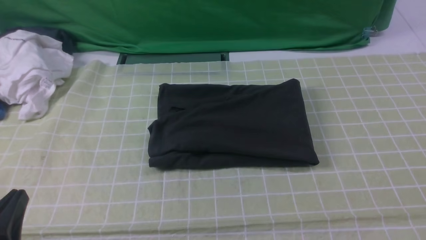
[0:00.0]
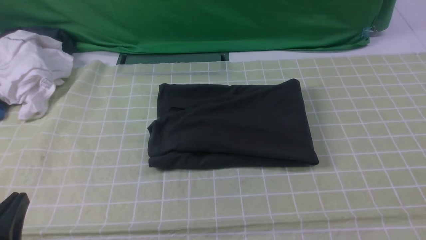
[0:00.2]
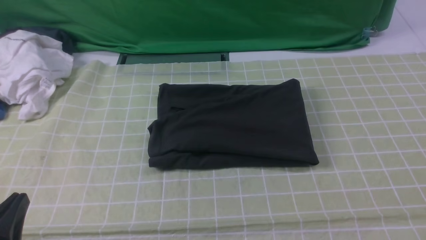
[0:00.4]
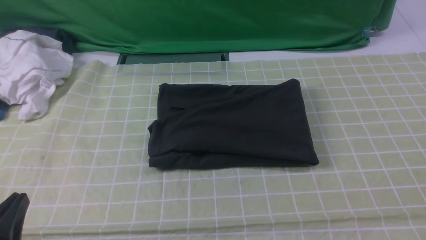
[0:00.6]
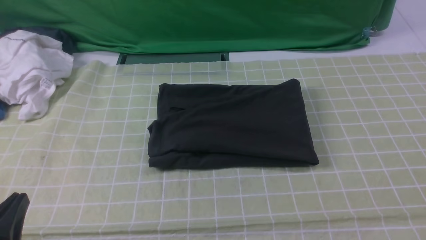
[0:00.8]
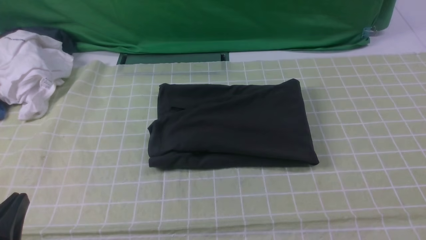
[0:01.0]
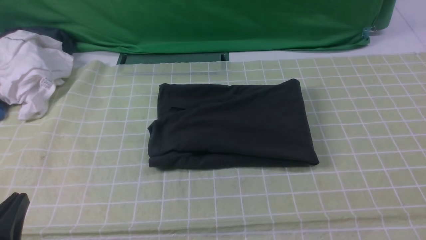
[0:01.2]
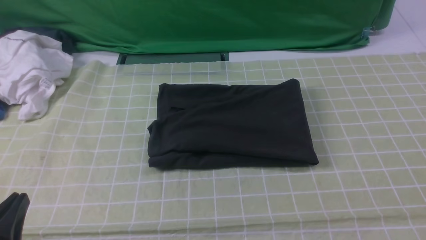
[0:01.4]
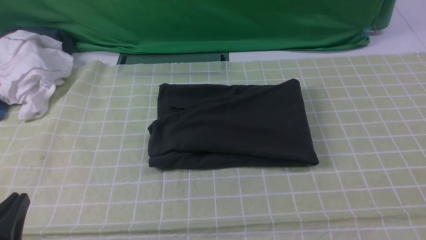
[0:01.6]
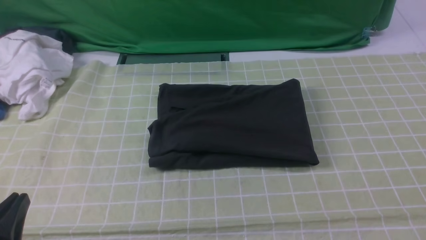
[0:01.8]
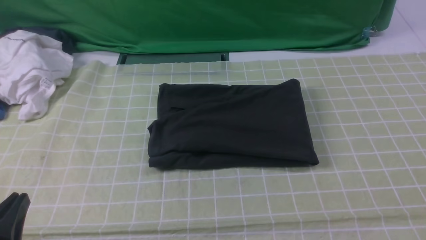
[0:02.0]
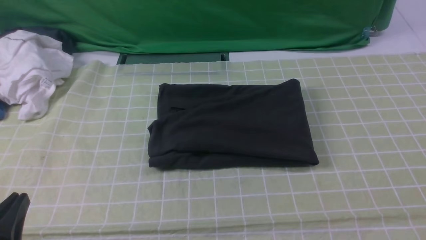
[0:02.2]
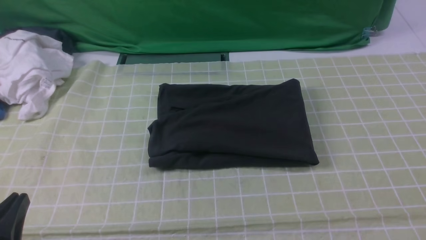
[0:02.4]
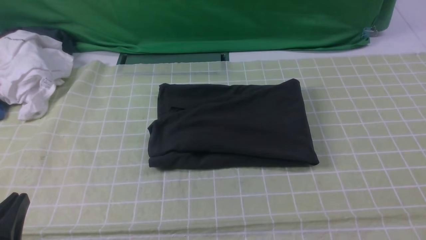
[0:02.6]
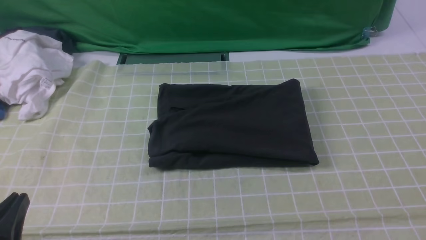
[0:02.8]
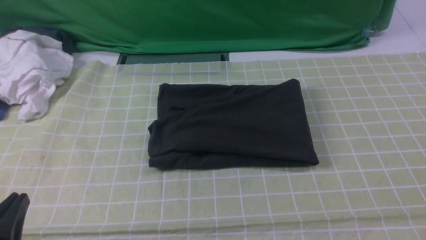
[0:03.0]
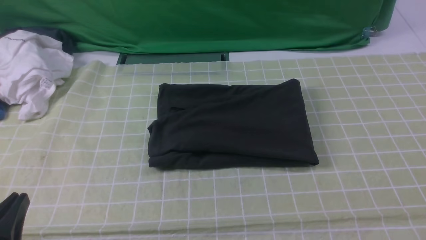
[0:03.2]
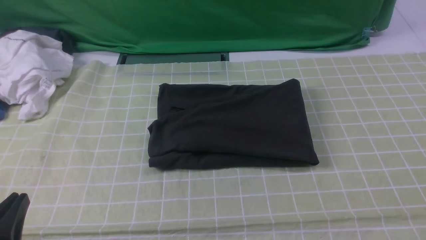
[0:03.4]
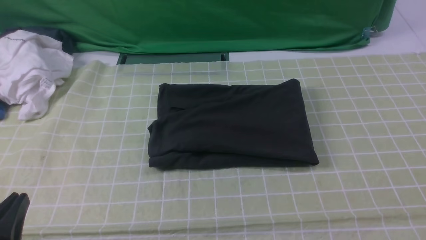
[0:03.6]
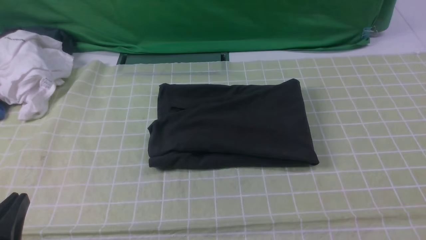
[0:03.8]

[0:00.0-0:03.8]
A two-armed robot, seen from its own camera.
0.0 to 1.2 s: Both grippers stay about where they are.
2.6 to 3.8 s: Both grippers stay about where they are.

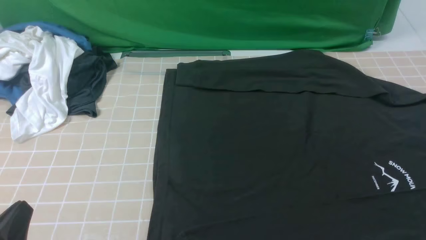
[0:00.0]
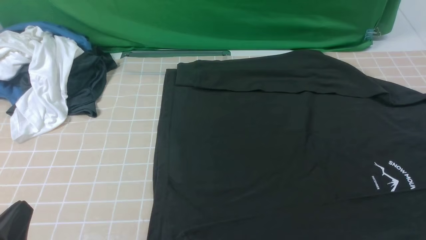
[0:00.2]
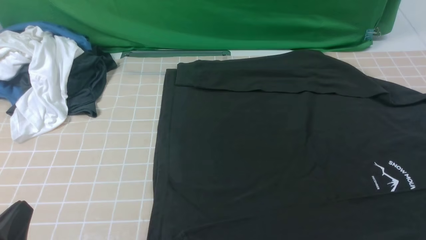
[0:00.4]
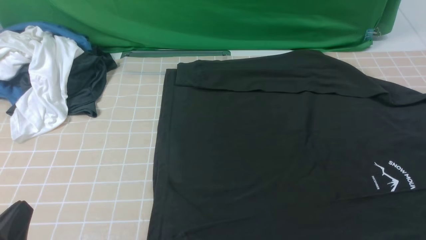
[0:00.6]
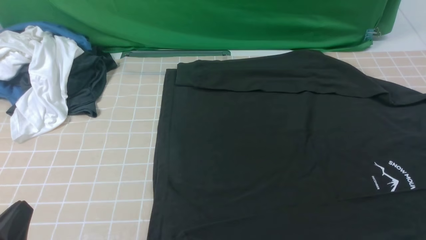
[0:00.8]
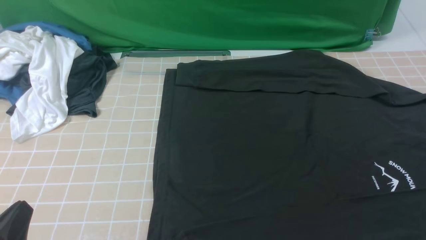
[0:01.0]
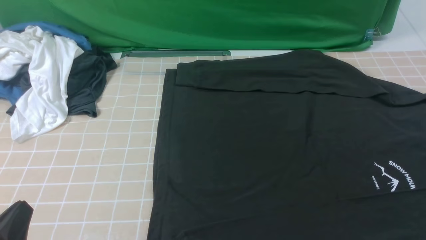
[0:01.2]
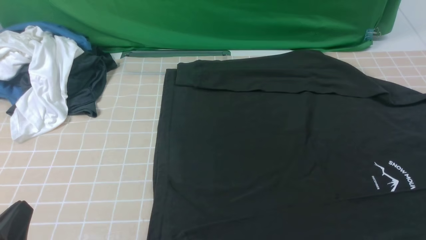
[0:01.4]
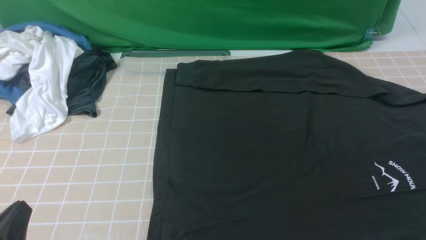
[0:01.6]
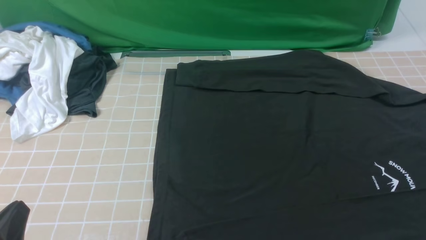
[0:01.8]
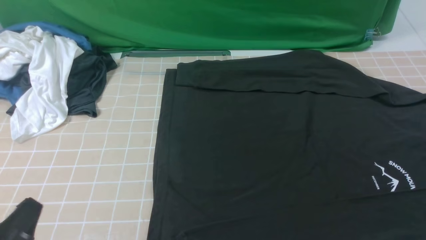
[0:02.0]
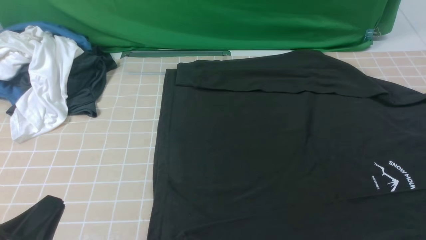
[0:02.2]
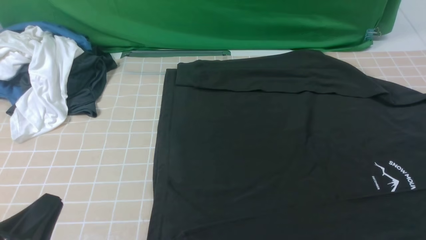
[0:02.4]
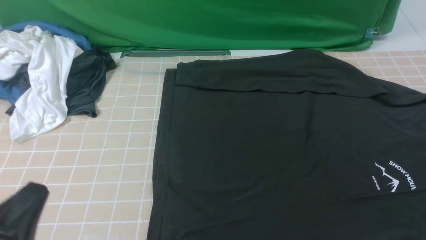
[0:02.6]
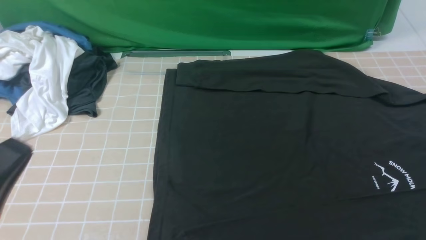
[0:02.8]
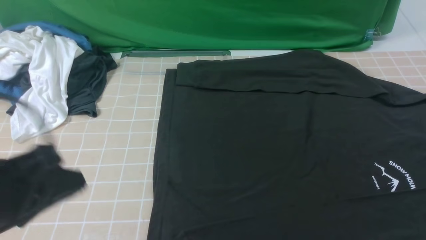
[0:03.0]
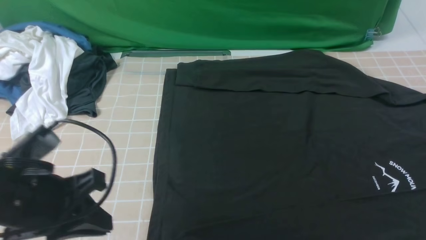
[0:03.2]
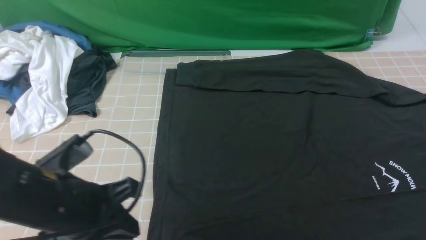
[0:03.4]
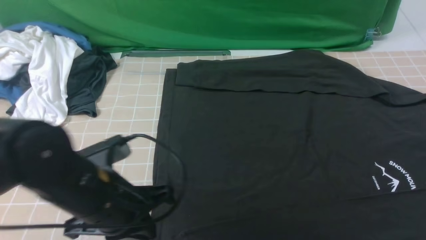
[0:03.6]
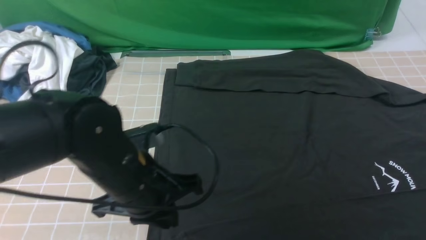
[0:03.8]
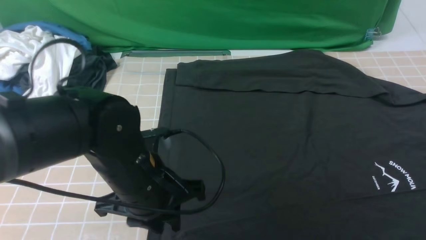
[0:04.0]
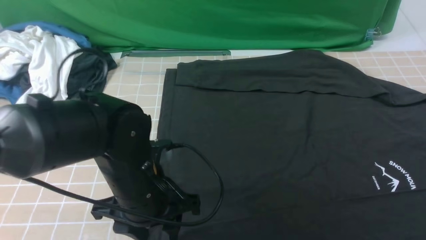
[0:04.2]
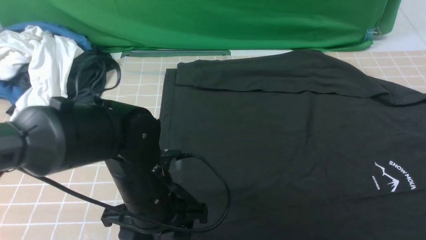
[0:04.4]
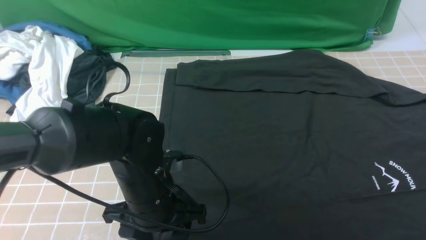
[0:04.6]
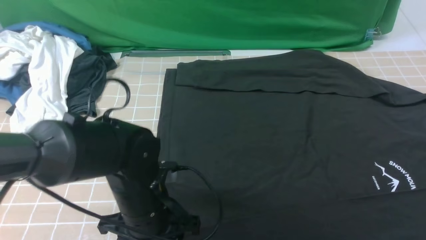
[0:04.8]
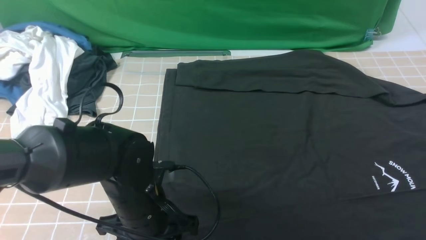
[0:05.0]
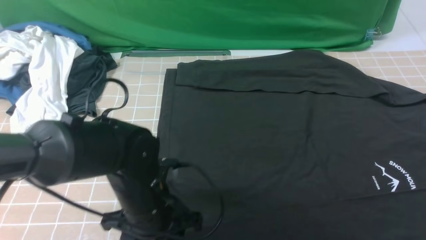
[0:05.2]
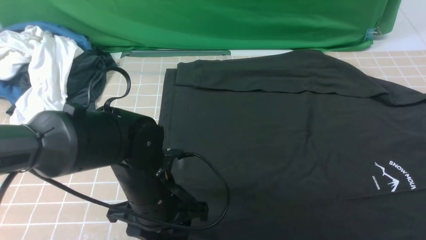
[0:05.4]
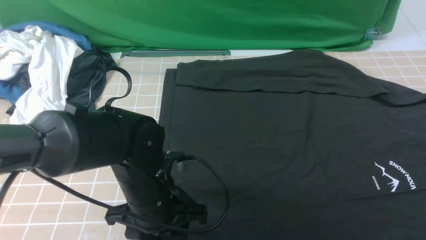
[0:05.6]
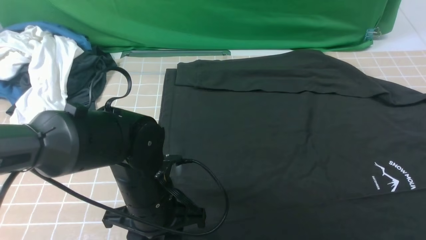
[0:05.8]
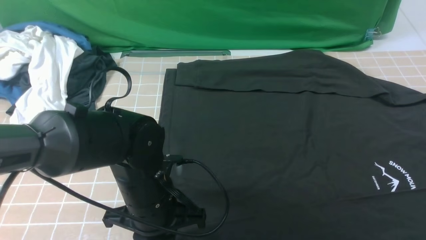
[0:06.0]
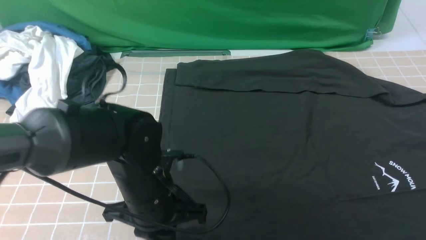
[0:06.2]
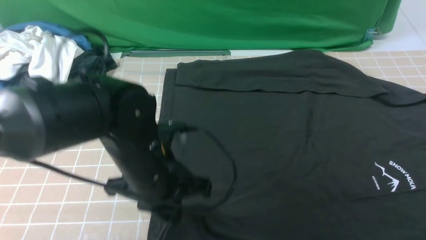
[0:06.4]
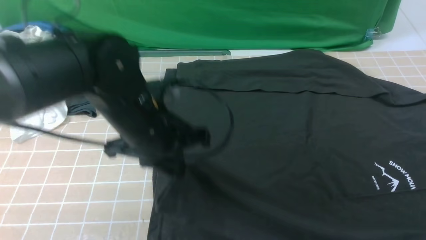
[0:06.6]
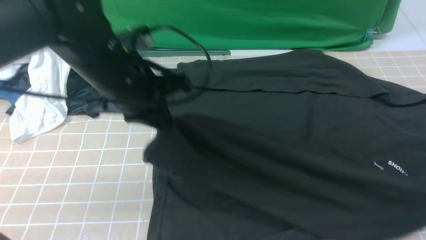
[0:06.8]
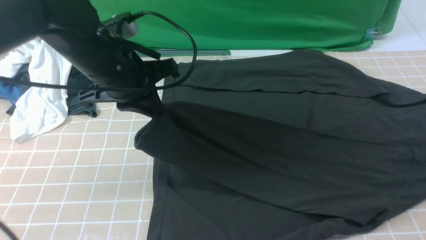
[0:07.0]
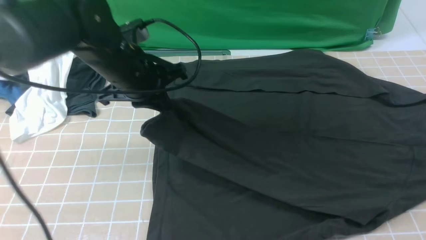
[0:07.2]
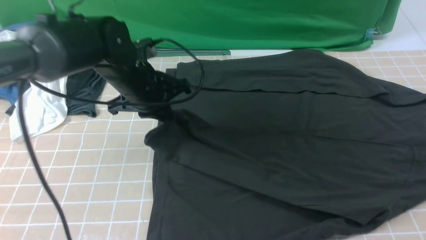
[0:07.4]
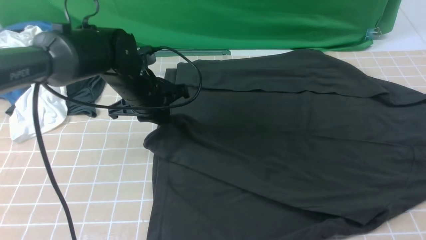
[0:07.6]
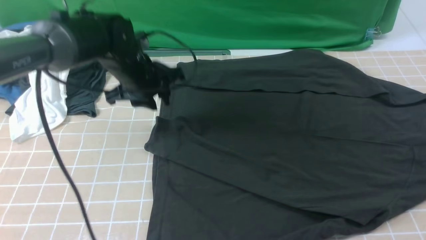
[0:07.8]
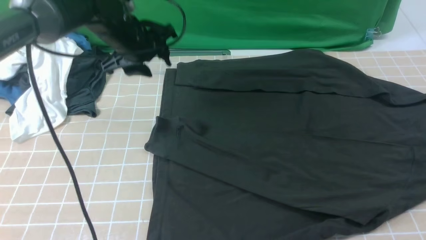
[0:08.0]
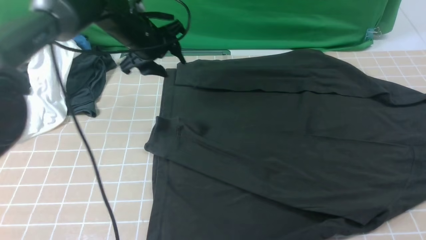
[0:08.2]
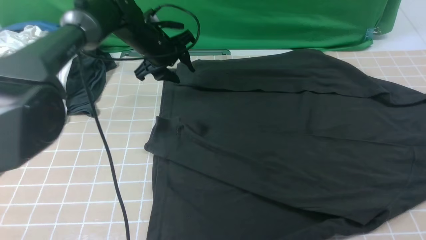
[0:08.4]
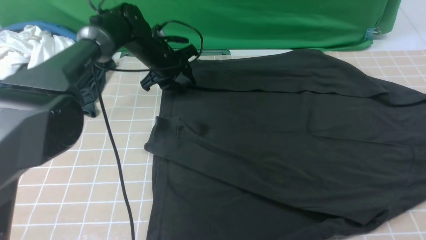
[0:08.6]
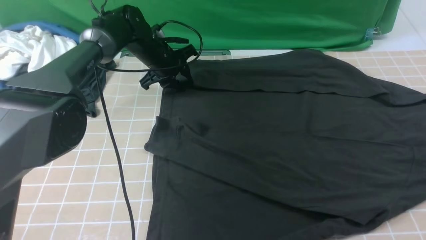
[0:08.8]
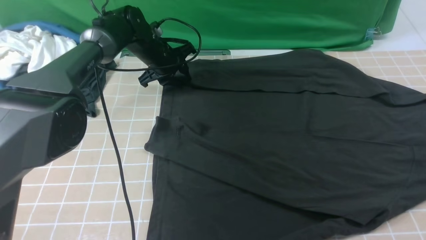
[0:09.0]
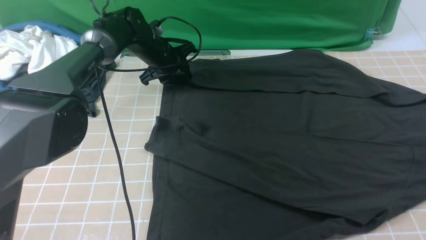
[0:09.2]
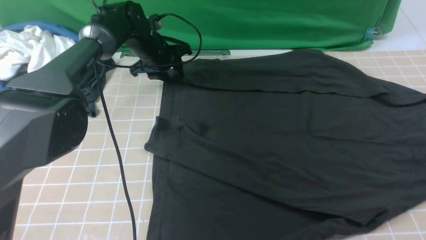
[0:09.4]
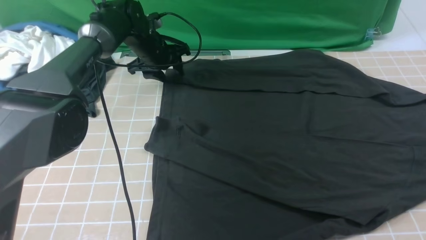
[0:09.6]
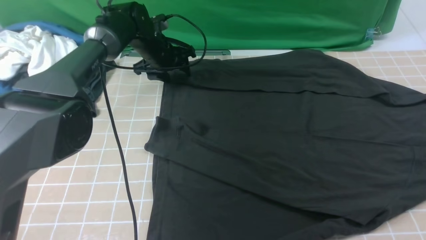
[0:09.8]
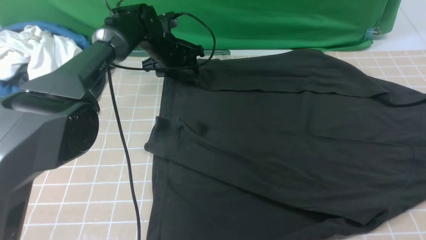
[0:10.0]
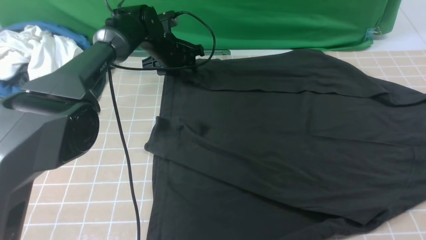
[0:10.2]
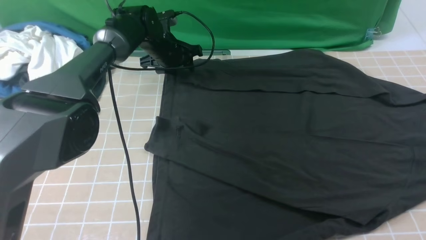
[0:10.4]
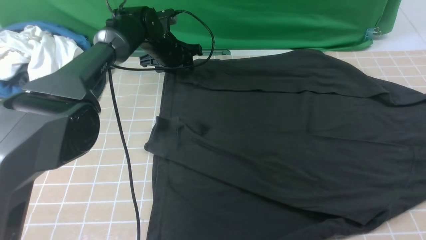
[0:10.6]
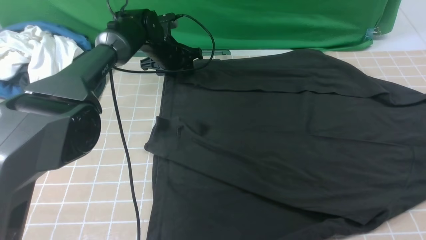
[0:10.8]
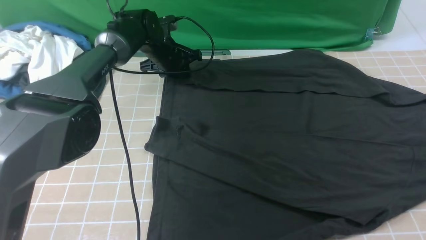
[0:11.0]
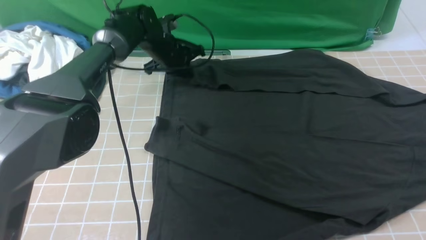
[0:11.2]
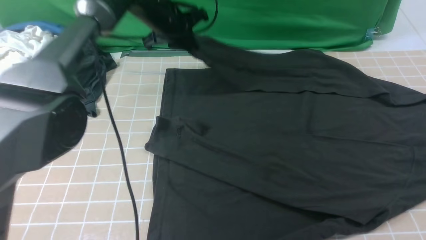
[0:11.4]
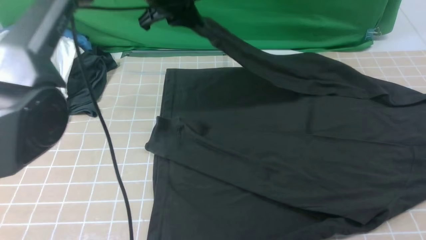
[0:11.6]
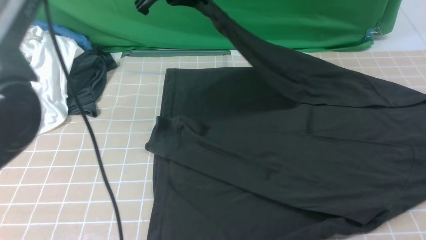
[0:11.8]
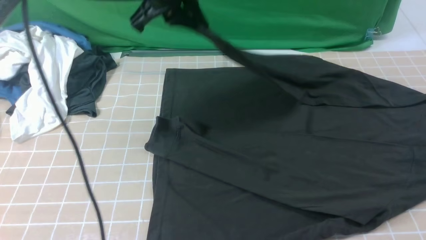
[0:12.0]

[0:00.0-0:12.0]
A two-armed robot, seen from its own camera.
Step, 0.0 to 6.0 s: use the left arm to clamp the cuff closest to it.
Step, 6.2 to 7.8 s: use the left arm to drag and place the cuff at the centered position on the left edge of the fabric.
Step, 8.0 to 11.0 s: use the left arm to clamp the cuff farthest from it.
0.0 to 1.6 s: Both grippers stay put.
1.6 to 3.0 s: The left gripper heads upward and forward, covering about 10 cm.
3.0 to 4.4 s: The left gripper moves to the right, downward and forward, about 20 cm, and opens.
4.4 to 6.0 s: The left gripper closes its fingers.
6.0 to 7.6 s: The left gripper moves forward, some 20 cm.
7.6 to 9.0 s: The left gripper goes roughly 15 cm forward.
10.4 to 12.0 s: The left gripper heads upward and backward, covering roughly 25 cm, and closes.

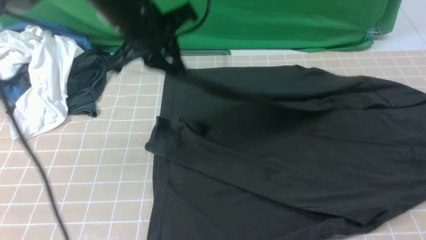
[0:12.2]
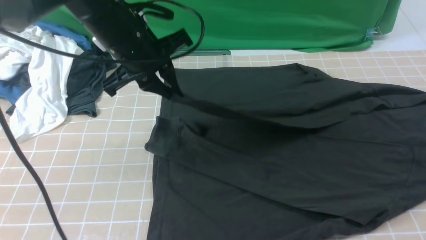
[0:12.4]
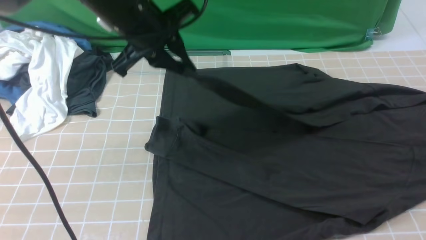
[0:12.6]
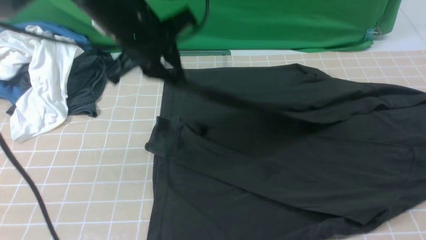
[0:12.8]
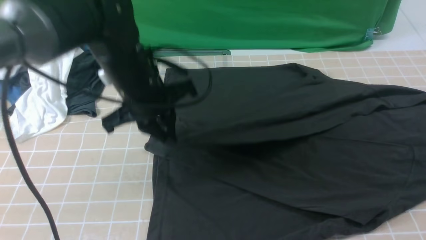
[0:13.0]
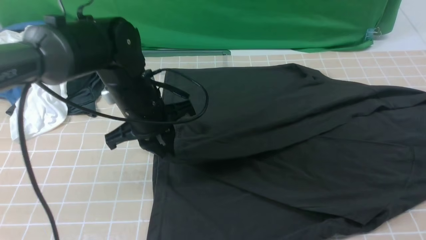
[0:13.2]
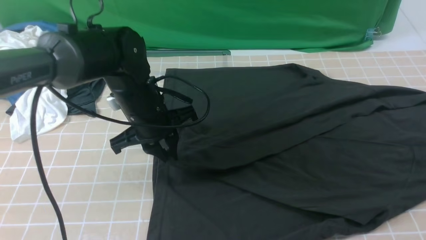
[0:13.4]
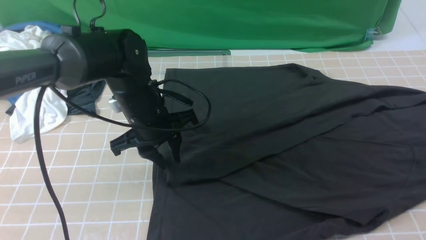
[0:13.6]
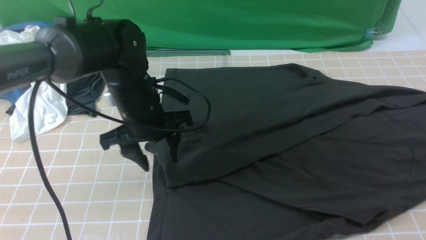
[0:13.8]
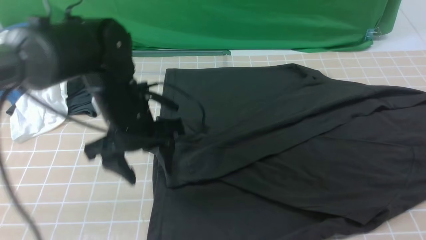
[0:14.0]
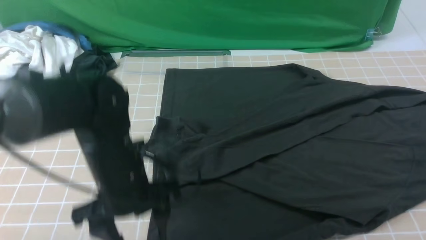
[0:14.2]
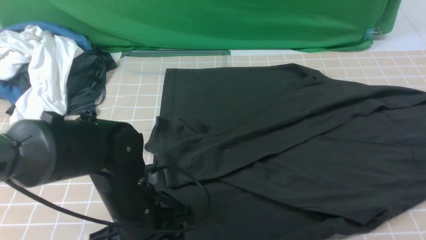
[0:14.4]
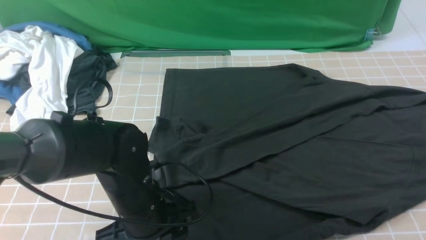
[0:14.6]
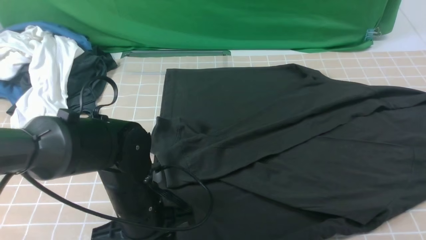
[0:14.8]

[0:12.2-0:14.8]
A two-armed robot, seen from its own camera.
Step, 12.2 to 13.8 s: use the left arm to drag and drop the cuff onto the cuff closest to the left arm.
12.2 to 13.4 s: The left gripper moves downward, some 15 cm.
13.4 to 14.8 s: The left gripper goes roughly 15 cm backward and downward, and opens, then closes once more.
